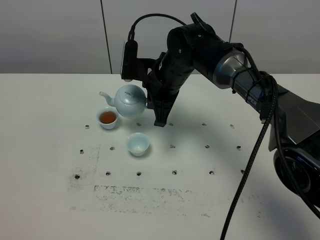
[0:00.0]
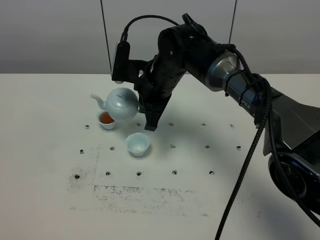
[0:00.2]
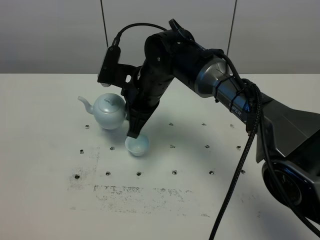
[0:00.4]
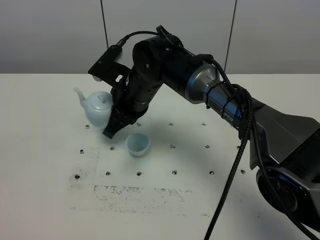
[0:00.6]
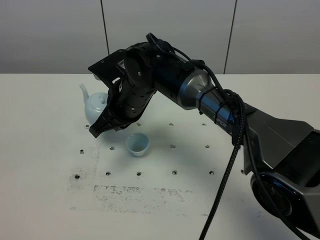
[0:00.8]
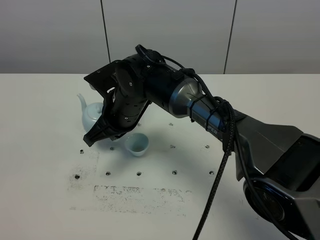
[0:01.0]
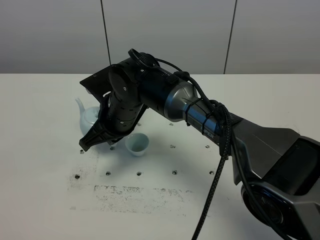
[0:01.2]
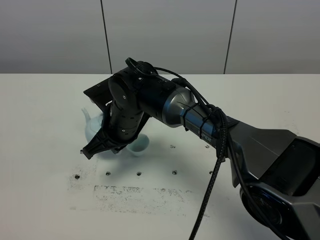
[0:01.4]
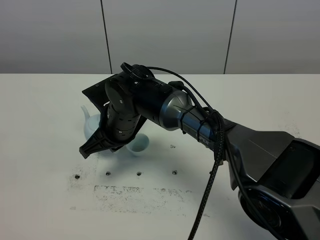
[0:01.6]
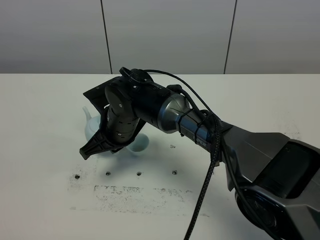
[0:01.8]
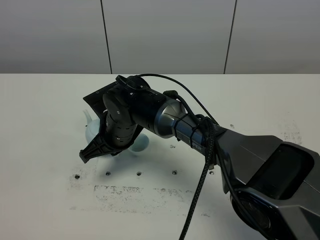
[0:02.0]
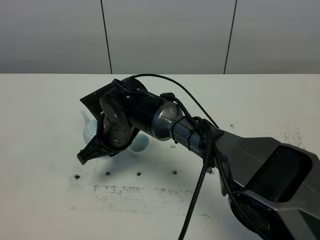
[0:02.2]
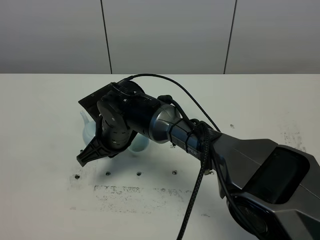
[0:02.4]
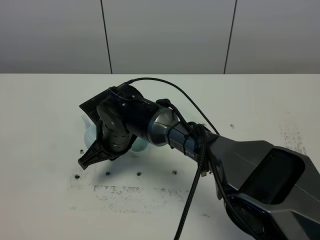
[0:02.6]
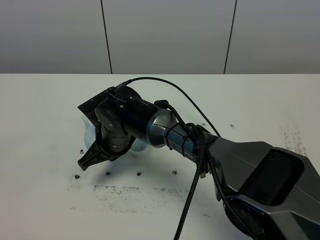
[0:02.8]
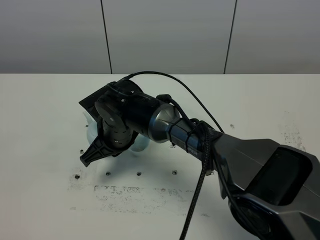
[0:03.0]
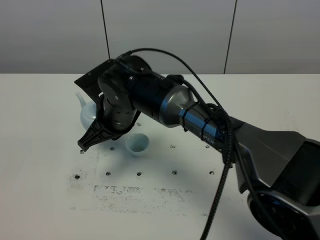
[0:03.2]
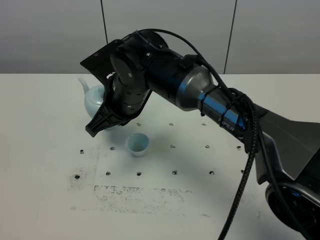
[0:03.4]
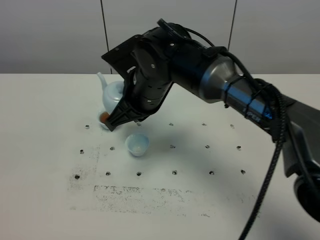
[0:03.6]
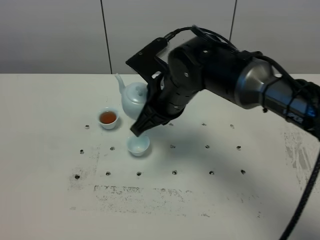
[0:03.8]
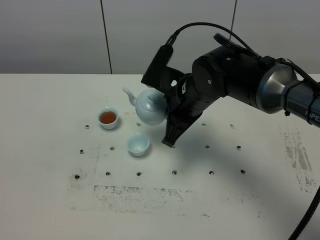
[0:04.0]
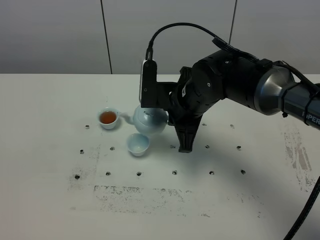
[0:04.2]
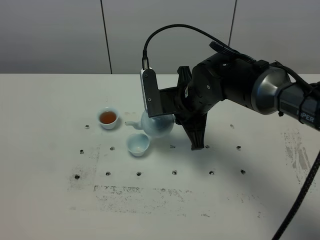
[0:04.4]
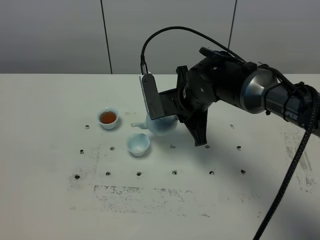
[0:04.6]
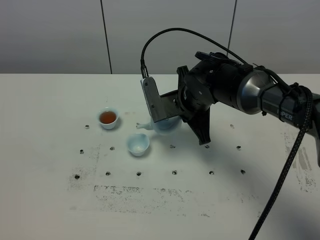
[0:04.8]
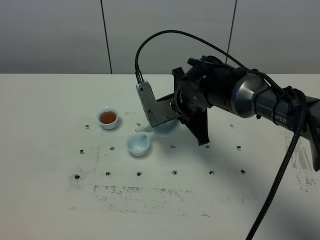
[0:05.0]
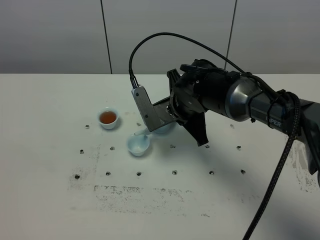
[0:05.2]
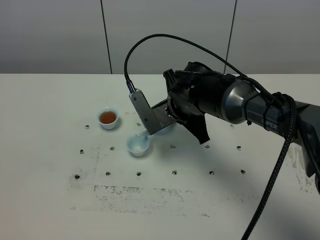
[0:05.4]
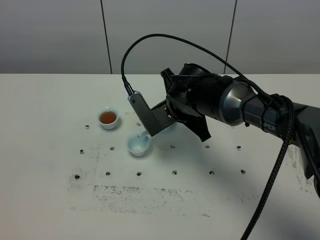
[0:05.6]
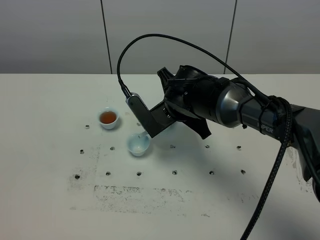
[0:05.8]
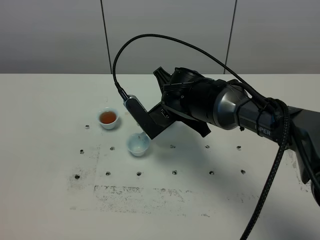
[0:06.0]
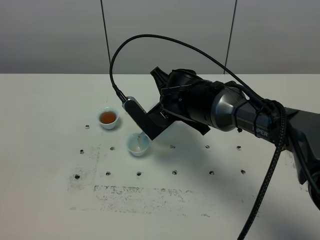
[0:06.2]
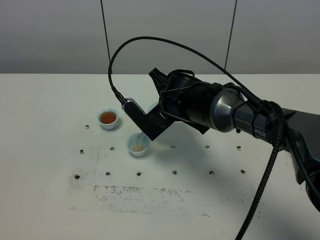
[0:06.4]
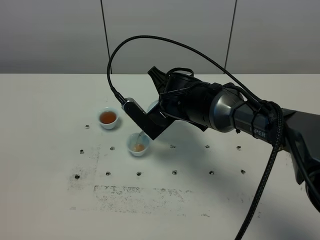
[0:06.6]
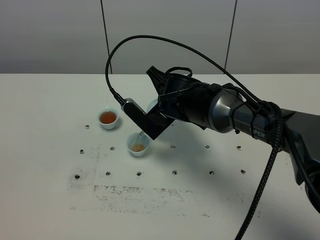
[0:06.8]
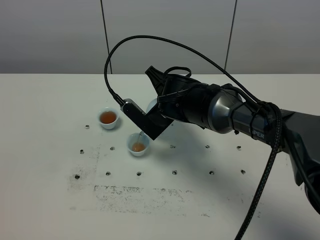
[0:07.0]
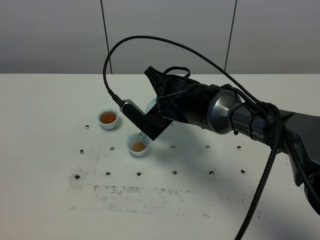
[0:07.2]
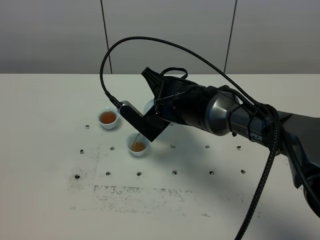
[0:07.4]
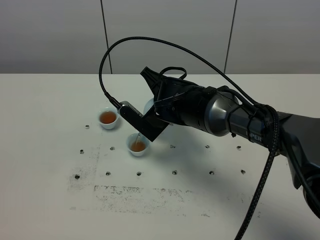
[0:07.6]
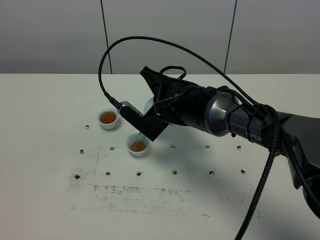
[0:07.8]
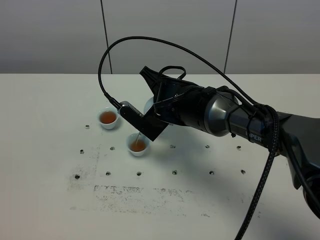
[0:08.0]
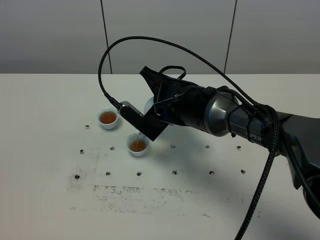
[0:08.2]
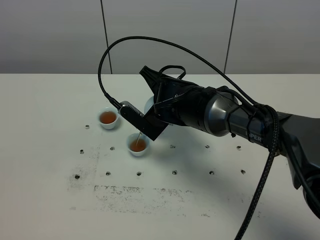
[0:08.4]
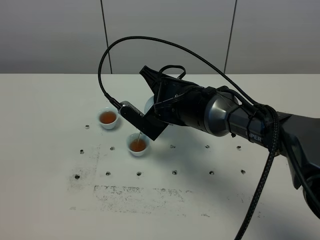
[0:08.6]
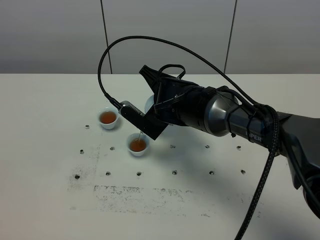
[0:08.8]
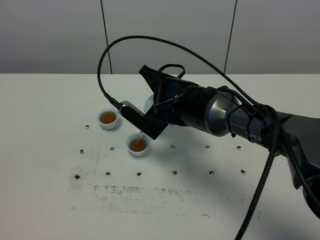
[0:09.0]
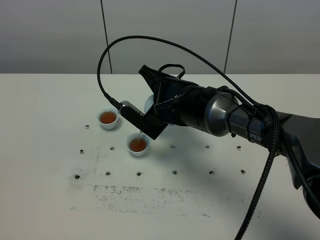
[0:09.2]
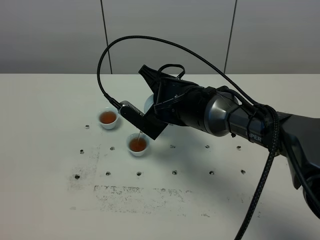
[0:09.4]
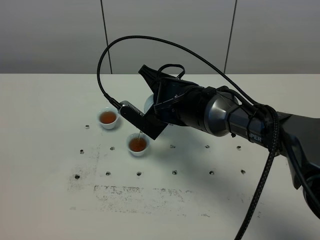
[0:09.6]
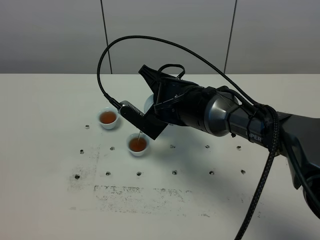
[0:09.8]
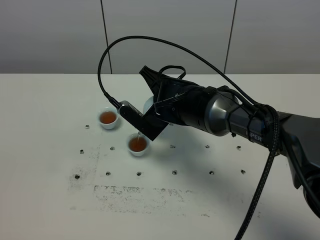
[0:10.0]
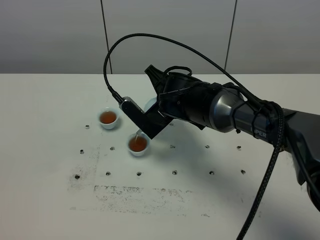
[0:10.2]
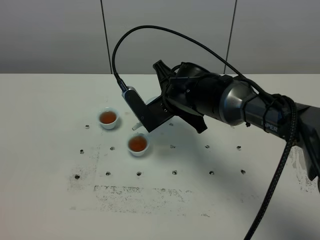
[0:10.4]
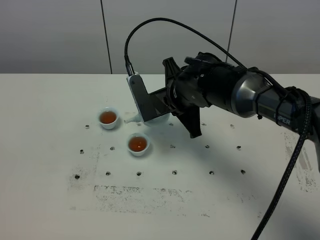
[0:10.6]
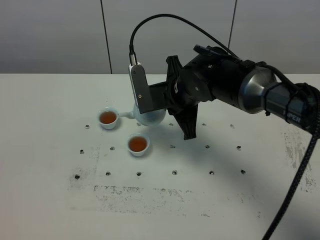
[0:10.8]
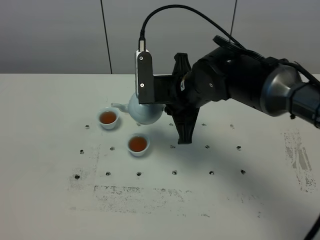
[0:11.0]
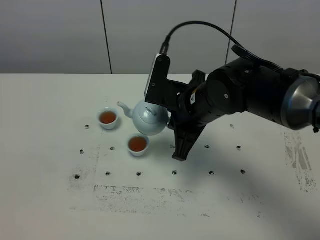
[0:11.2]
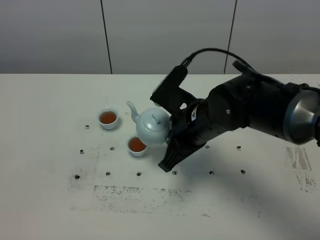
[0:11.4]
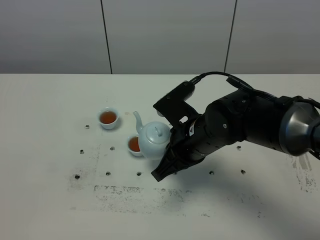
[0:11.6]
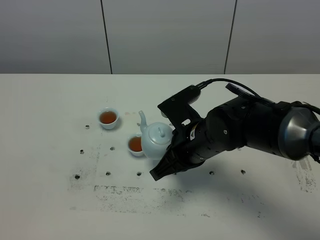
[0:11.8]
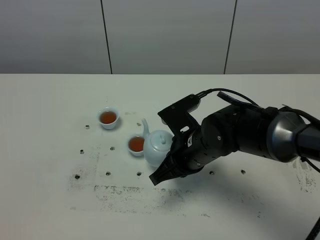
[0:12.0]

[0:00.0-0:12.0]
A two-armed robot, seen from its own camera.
Task of the whole recording: grasp the blue porcelain teapot and pour the tea into the two blue porcelain teacups one by one, put the blue porcelain teapot back in its original place.
Step, 0:00.0 to 0:10.4: Pour tea into the teacup with the right gripper.
0:00.0 to 0:01.6: The right gripper is displaced to the left and backward by some 10 cm.
0:01.6 to 0:03.0: The grippers stay close to where they were, moving slightly.
0:03.0 to 0:04.4: The right gripper is displaced to the right by about 15 cm.
0:06.0 to 0:07.6: There are only small adjustments of the grippers.
0:07.6 to 0:09.0: Both grippers stay about where they are.
0:10.4 to 0:12.0: The right gripper goes some 10 cm backward.

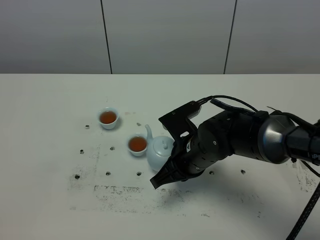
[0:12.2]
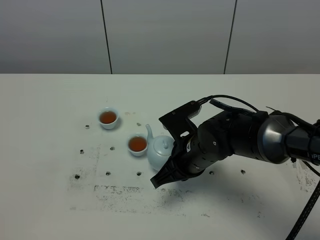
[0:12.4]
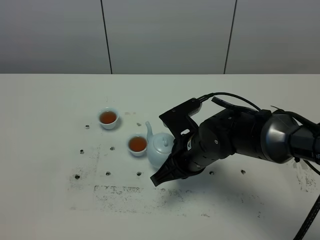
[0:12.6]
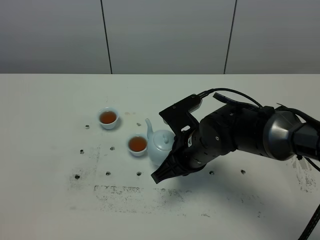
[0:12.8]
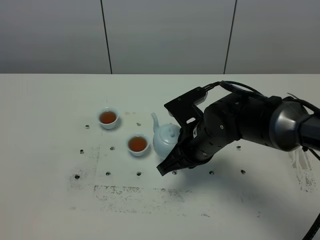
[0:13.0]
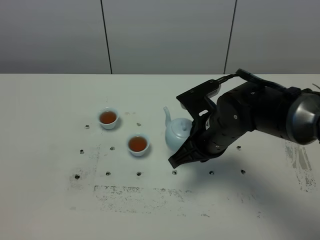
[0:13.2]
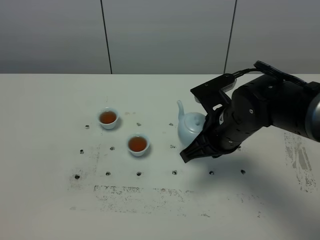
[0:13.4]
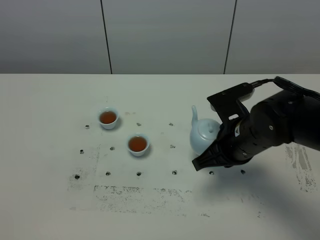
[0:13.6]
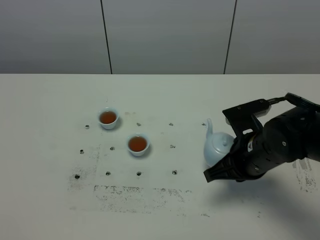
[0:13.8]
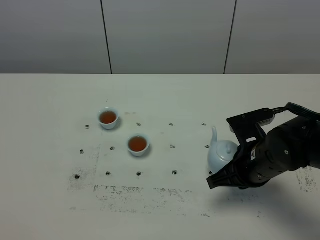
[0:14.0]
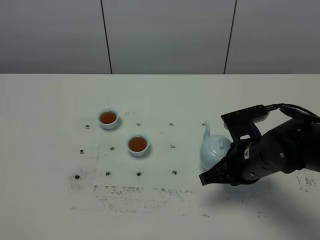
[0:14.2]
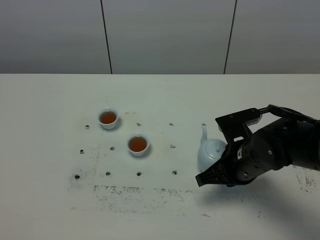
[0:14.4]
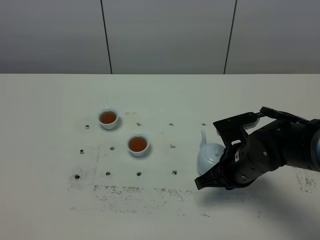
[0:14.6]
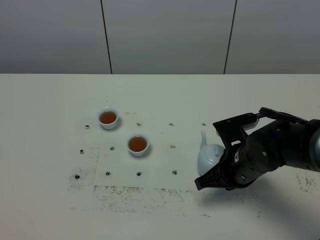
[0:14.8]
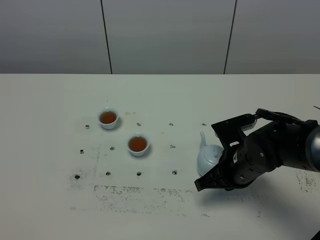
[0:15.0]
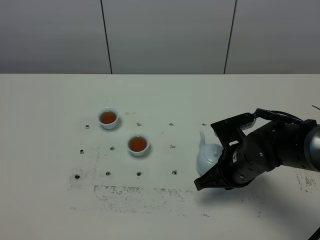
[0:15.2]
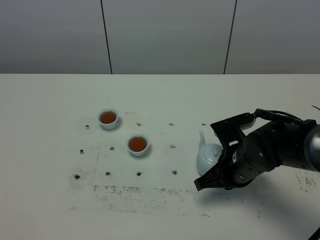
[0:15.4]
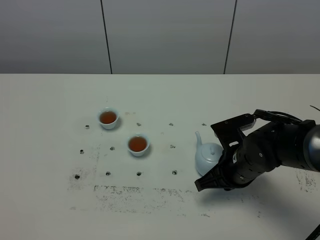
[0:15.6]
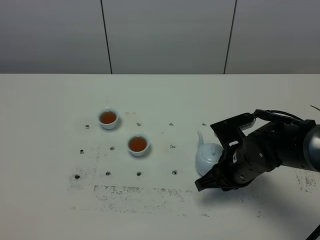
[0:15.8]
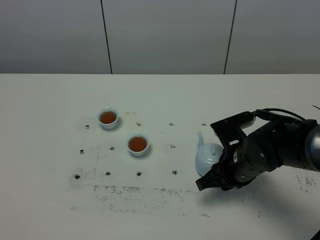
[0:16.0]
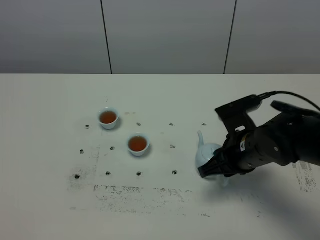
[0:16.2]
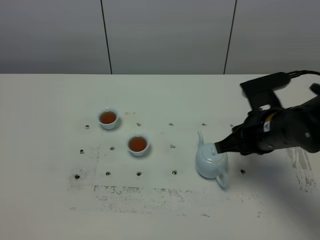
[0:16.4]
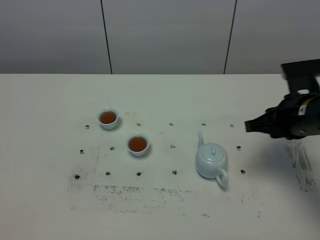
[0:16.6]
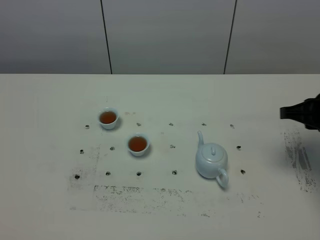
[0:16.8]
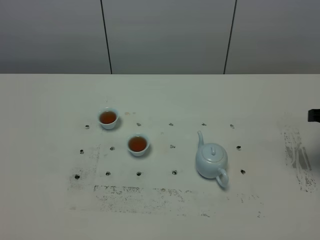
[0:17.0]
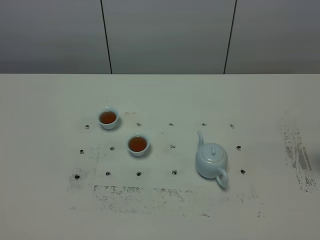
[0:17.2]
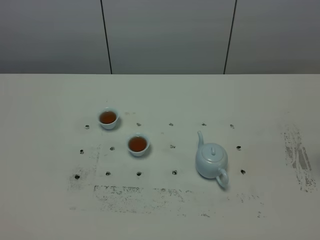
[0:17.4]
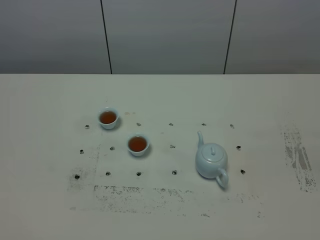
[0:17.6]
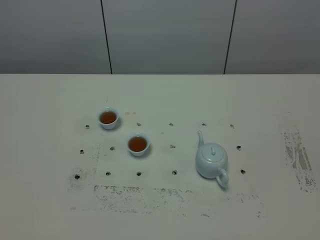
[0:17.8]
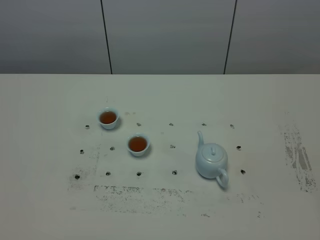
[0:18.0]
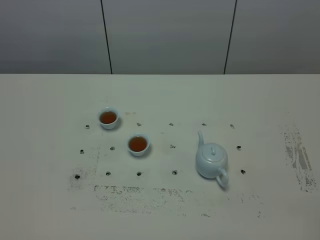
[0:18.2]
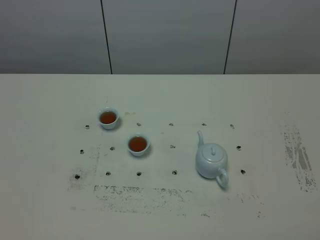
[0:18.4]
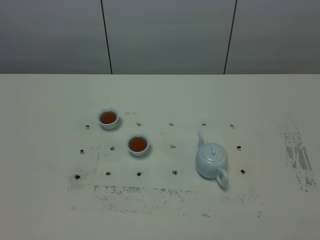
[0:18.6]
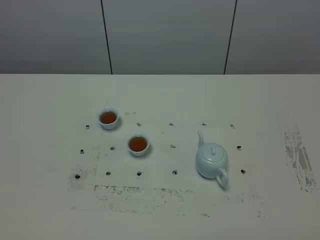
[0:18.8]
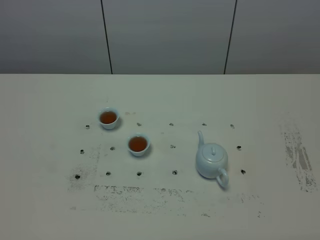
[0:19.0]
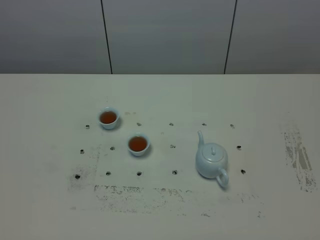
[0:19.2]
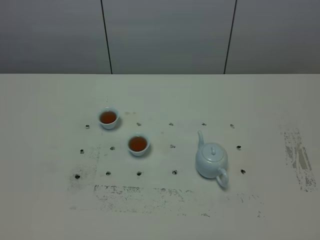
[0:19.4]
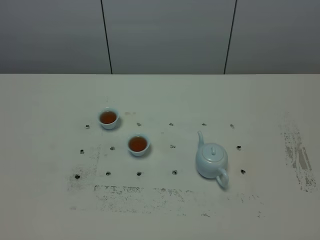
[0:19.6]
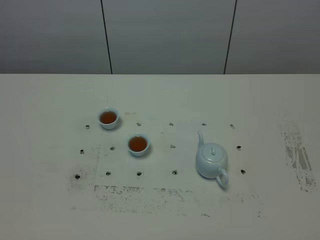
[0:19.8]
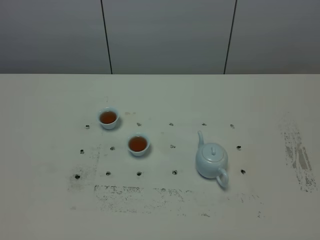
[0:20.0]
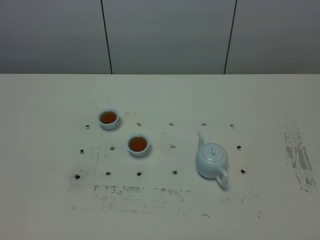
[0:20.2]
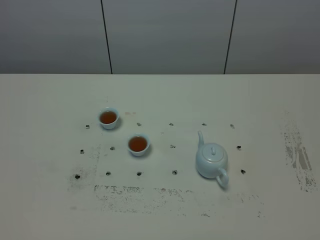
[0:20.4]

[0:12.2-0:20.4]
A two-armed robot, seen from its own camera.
Task of the whole recording: grasp the blue porcelain teapot and pour the tea into the two blue porcelain teacups one by one, put the blue porcelain teapot back in its original place.
0:12.2 to 0:13.8: The right gripper moves to the right, some 10 cm.
0:13.8 to 0:15.4: The grippers move only a little.
0:15.4 to 0:17.2: The right gripper moves to the right and upward, roughly 25 cm, and opens up.

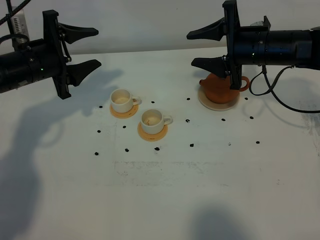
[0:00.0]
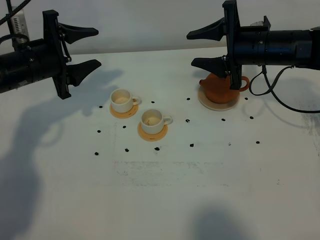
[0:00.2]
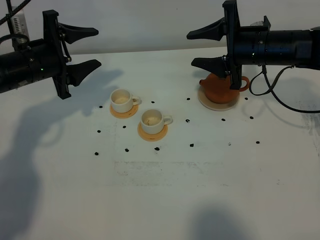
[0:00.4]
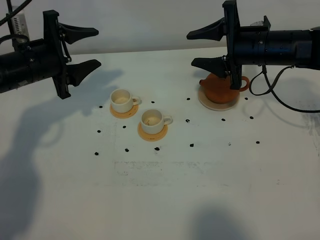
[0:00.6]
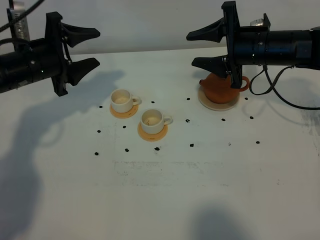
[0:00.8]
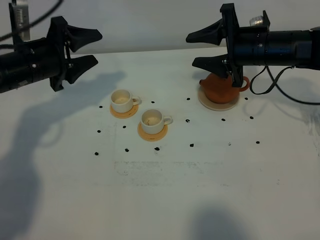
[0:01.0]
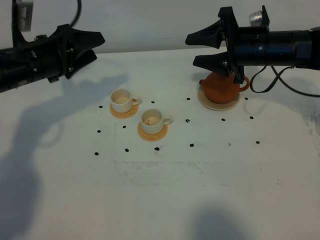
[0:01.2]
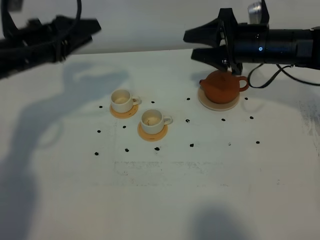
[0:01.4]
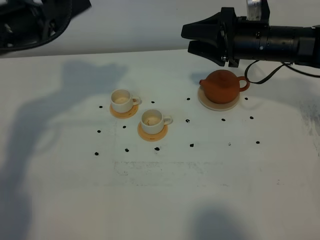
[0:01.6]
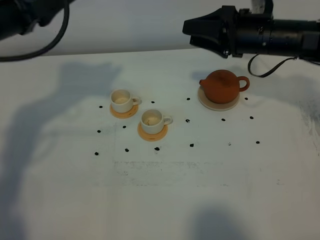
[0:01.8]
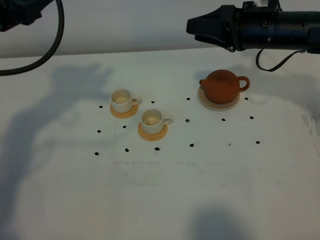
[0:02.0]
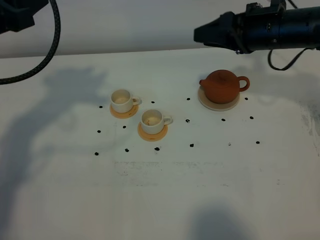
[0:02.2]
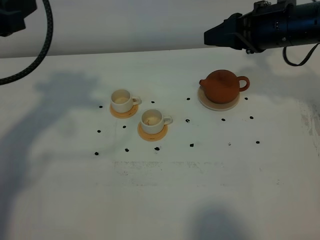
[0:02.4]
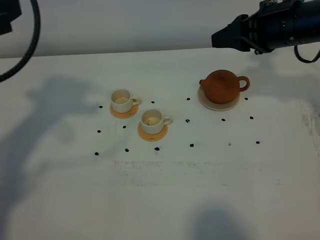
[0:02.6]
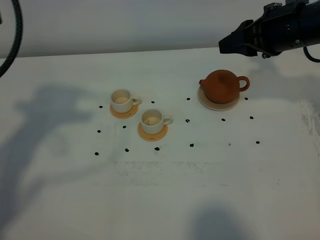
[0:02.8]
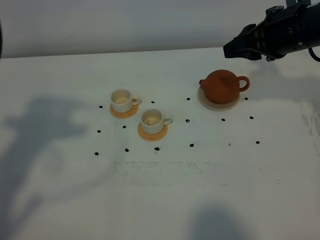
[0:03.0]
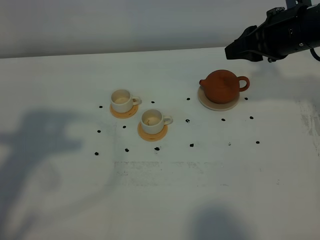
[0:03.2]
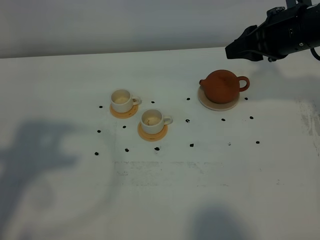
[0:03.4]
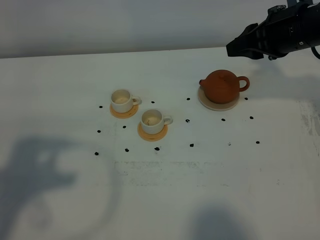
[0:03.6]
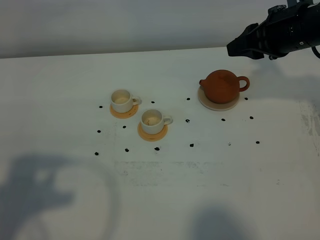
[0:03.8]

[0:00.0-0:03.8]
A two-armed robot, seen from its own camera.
Task of the whole recording: grasp the brown teapot and pour the tea into the two white teacups one by one, put the brown teapot back in its original place.
0:01.2 to 0:02.6: The right gripper travels upward by approximately 10 cm, and closes, while the left gripper is displaced upward and backward by roughly 20 cm.
0:02.6 to 0:03.8: The left gripper moves backward, roughly 15 cm.
